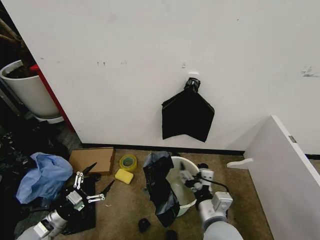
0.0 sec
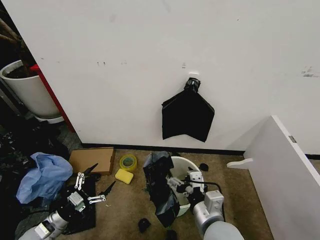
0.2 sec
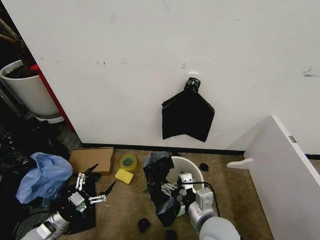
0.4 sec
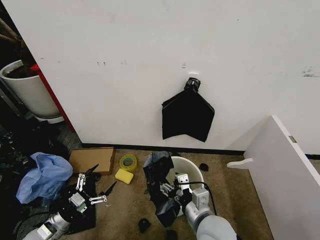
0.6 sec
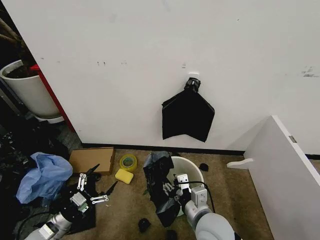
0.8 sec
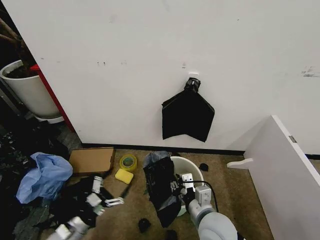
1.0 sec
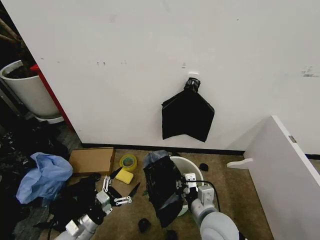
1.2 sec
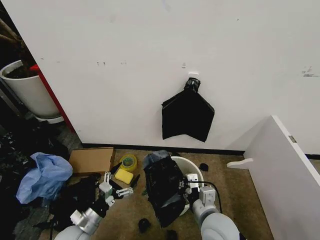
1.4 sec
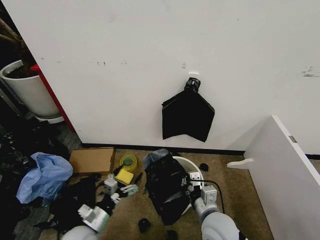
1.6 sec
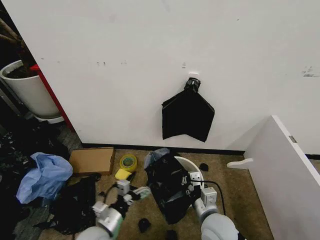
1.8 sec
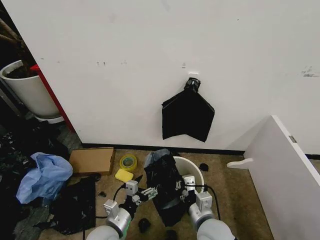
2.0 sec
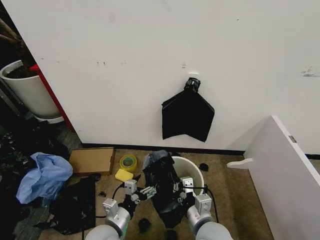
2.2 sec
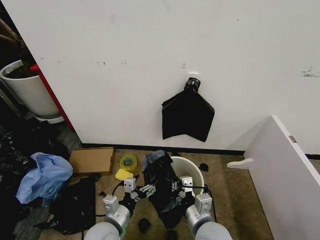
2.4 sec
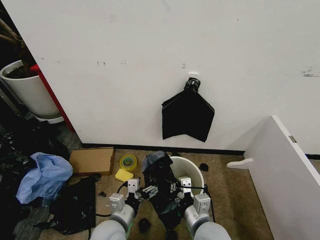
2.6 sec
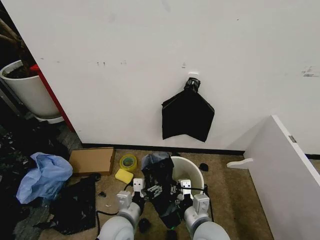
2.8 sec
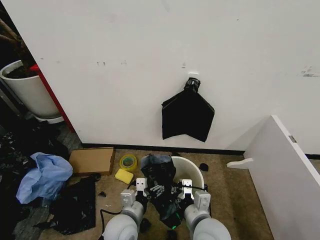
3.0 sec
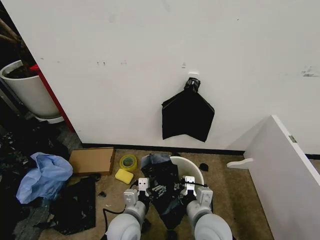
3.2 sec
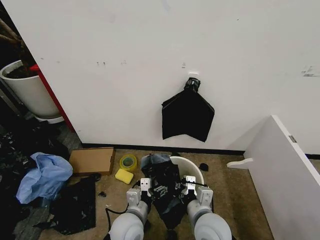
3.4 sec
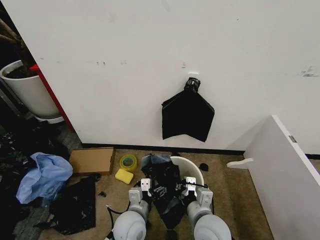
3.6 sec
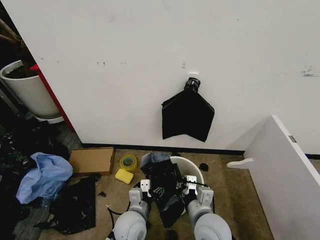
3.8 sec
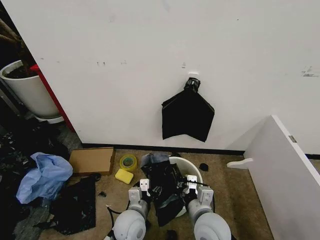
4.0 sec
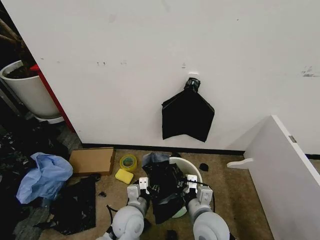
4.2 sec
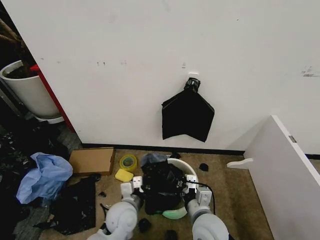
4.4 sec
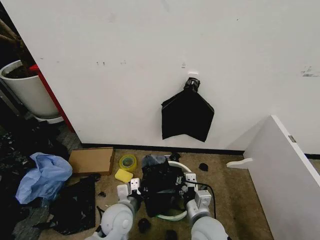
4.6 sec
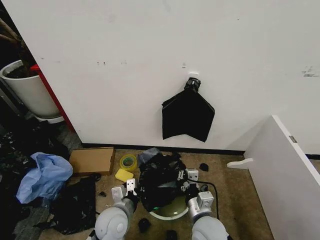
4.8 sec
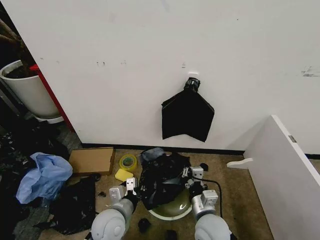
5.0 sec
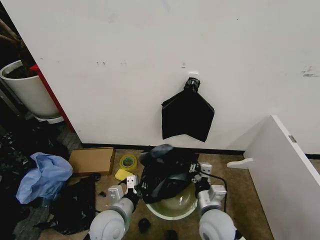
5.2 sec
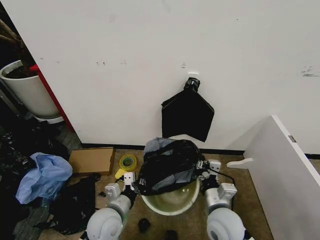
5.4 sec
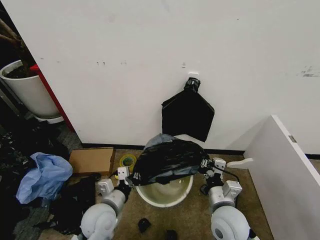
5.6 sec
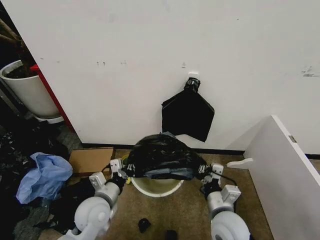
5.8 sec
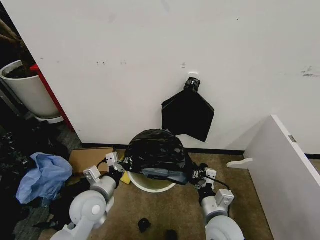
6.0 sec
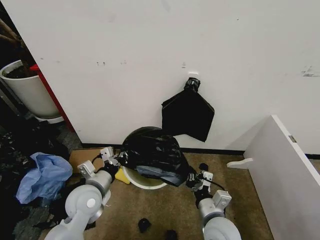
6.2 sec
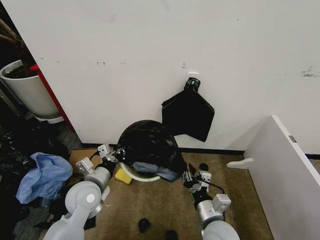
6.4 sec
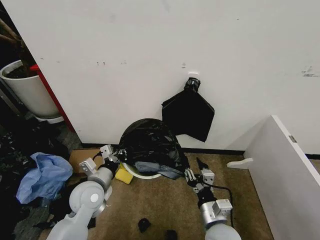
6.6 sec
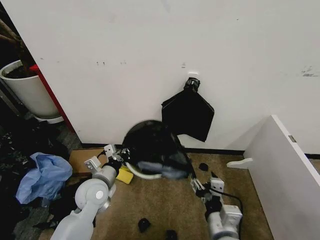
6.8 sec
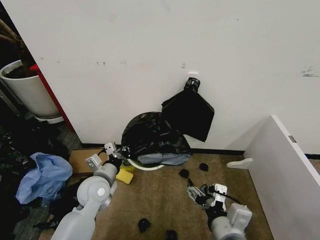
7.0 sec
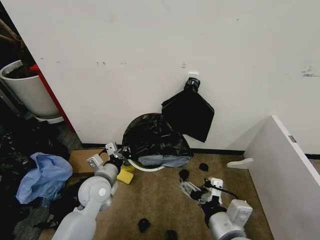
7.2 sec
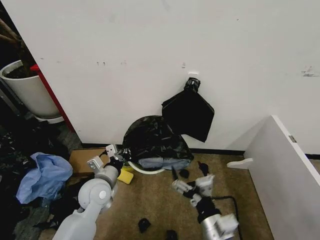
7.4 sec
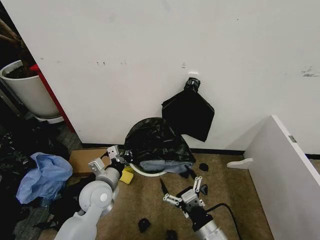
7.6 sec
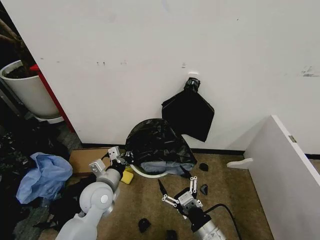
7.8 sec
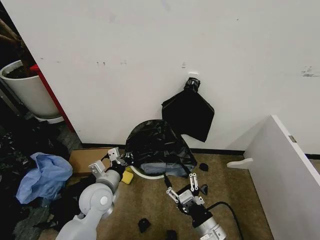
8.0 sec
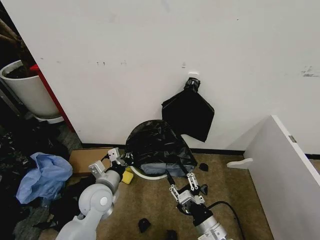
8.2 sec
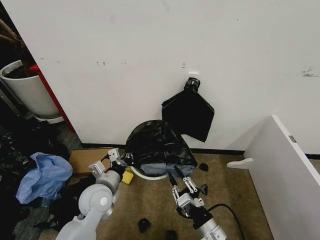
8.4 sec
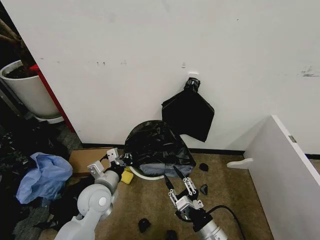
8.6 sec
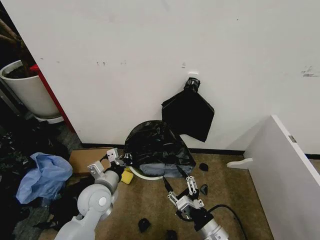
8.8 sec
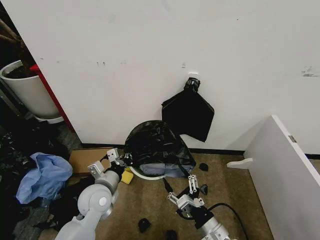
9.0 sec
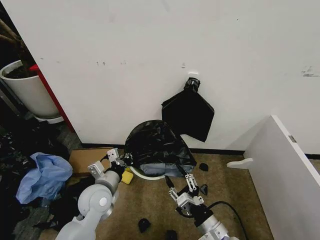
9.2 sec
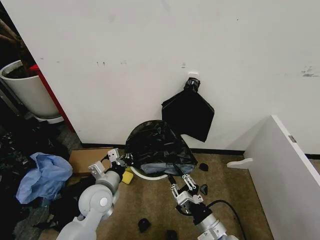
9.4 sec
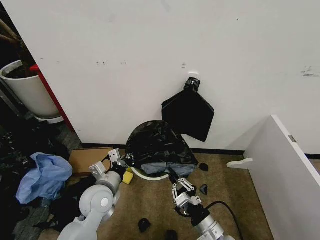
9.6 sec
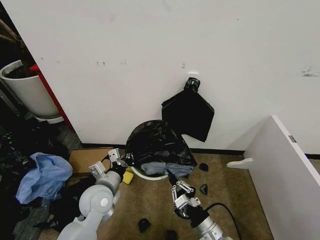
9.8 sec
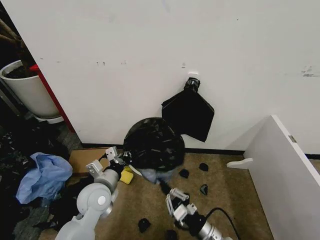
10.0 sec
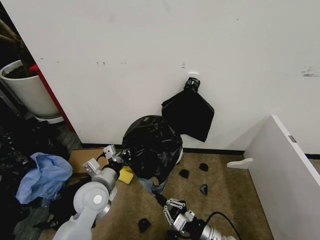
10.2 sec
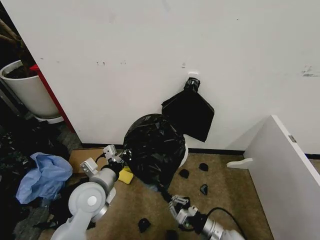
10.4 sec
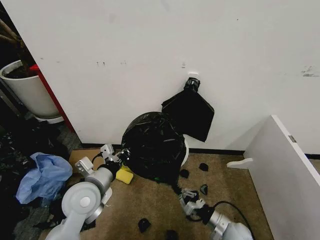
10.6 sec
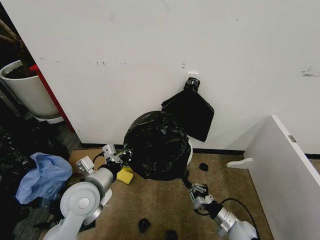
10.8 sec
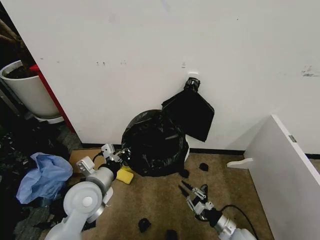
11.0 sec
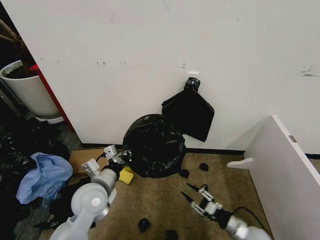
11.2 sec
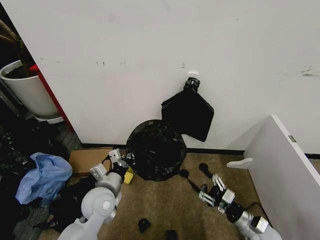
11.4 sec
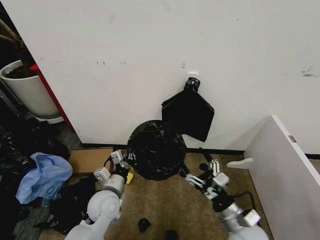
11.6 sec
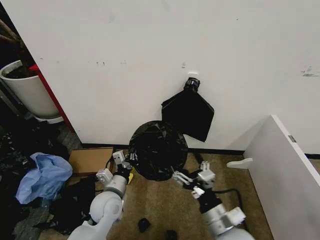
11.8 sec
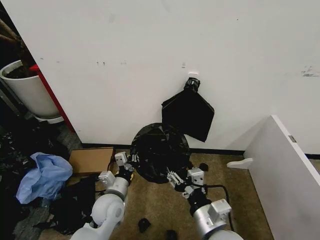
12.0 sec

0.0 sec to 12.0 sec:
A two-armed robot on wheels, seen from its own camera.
Task of the whole recording: Place the garbage bag over the trash bin.
0.0 sec to 1.6 sec: The left gripper is displaced to the right by roughly 15 cm. The right gripper closes up.
1.6 sec to 3.0 sec: The left gripper is displaced to the right by roughly 15 cm.
3.0 sec to 4.4 sec: The left gripper closes its fingers.
4.4 sec to 6.0 sec: The left gripper travels to the left and upward by approximately 10 cm.
6.0 sec to 7.6 sec: The right gripper moves backward, approximately 5 cm, moves approximately 10 cm upward and comes back, and opens its fingers.
7.6 sec to 9.0 sec: The right gripper closes and opens again.
9.0 sec to 10.4 sec: The right gripper goes some 10 cm downward, and closes.
10.4 sec to 12.0 sec: The left gripper is displaced downward by roughly 10 cm, while the right gripper shifts approximately 20 cm upward and to the left, and opens its fingers.

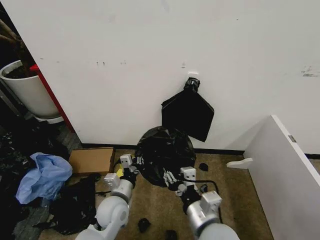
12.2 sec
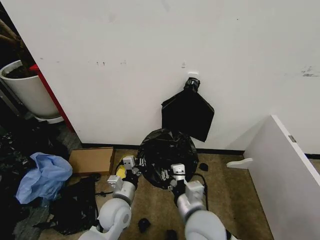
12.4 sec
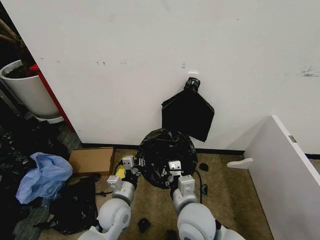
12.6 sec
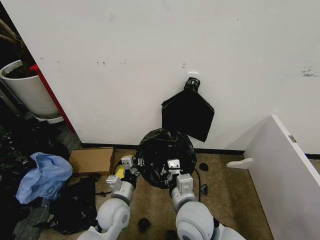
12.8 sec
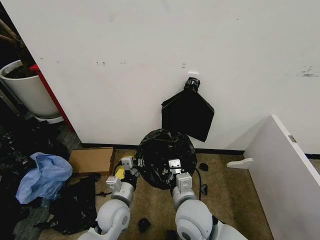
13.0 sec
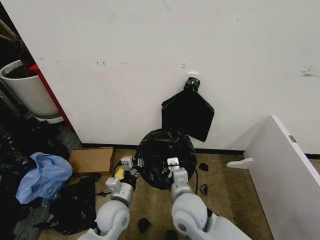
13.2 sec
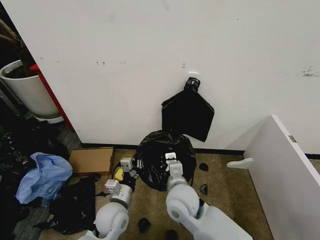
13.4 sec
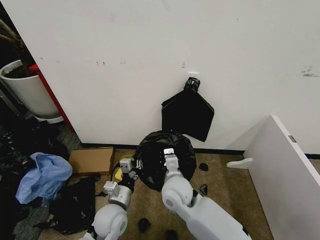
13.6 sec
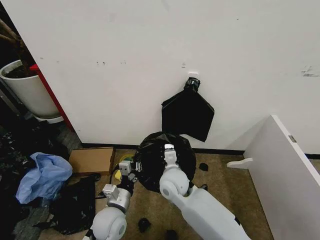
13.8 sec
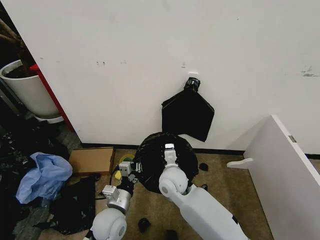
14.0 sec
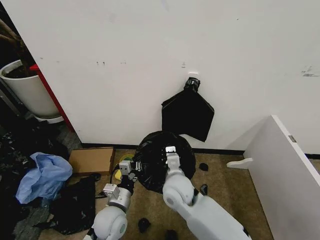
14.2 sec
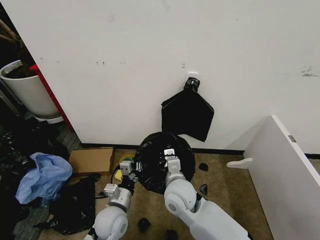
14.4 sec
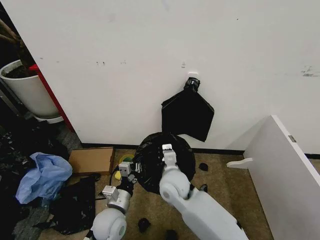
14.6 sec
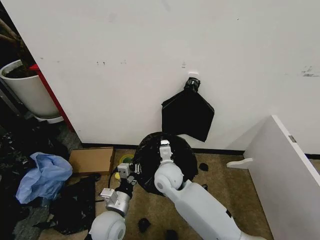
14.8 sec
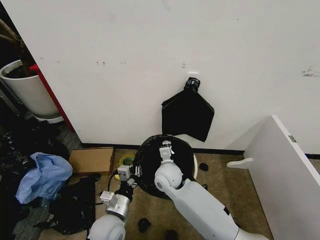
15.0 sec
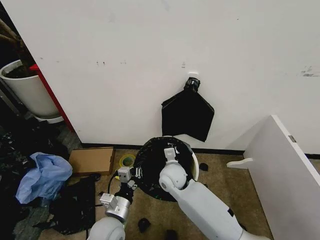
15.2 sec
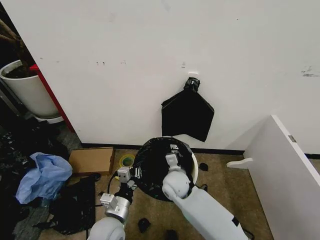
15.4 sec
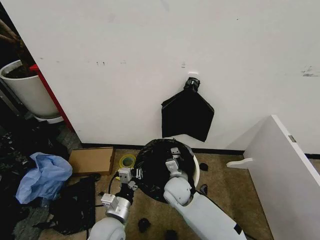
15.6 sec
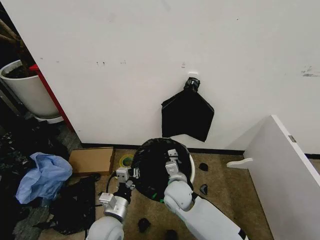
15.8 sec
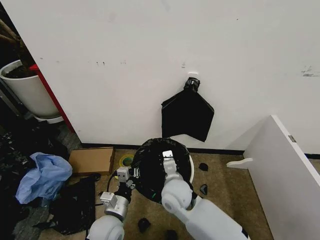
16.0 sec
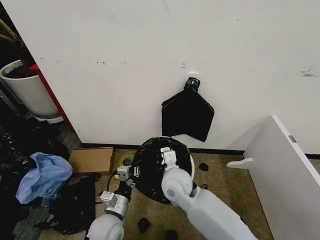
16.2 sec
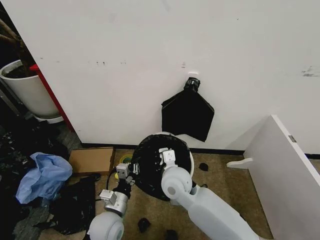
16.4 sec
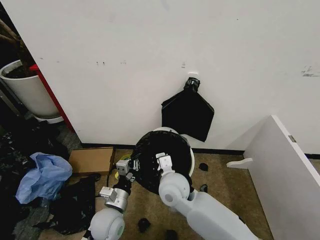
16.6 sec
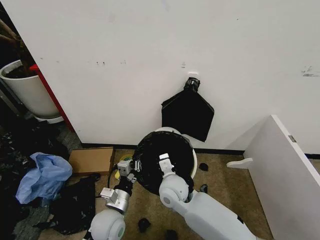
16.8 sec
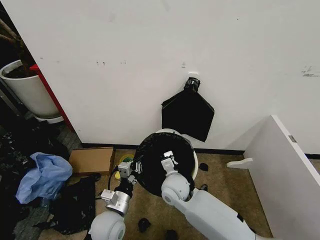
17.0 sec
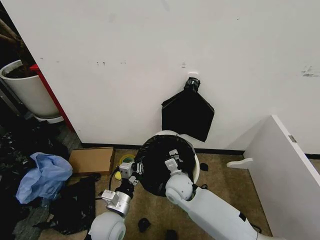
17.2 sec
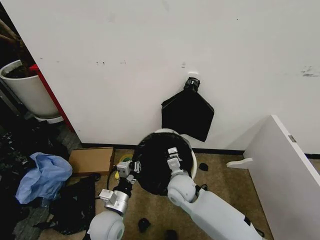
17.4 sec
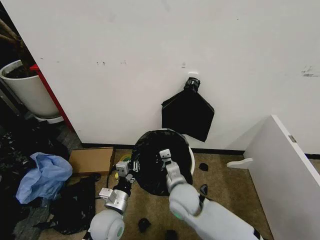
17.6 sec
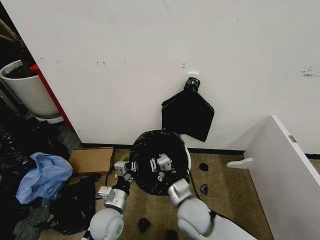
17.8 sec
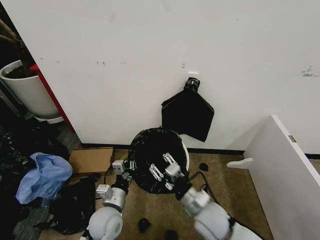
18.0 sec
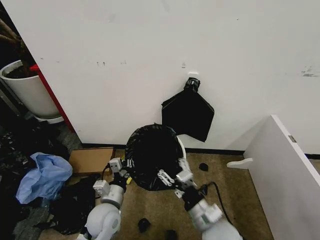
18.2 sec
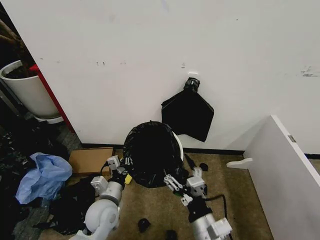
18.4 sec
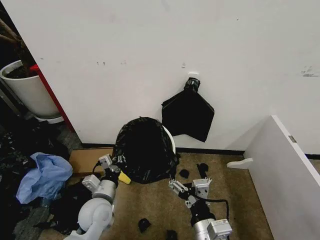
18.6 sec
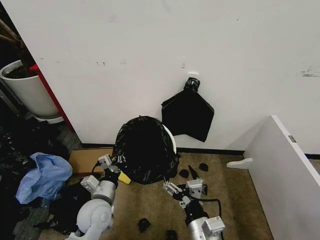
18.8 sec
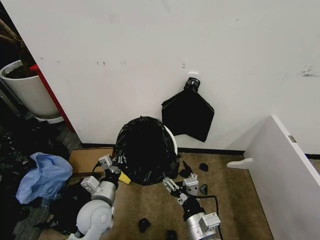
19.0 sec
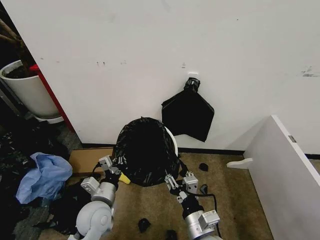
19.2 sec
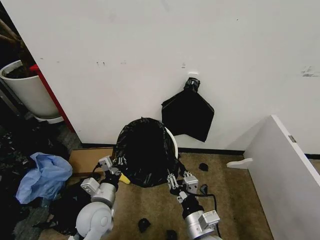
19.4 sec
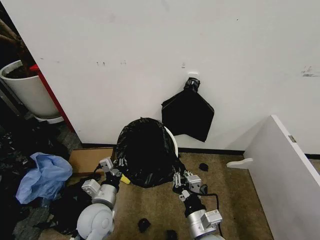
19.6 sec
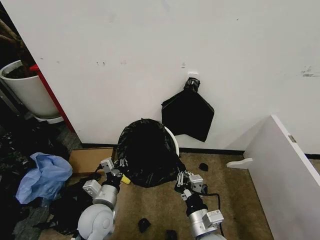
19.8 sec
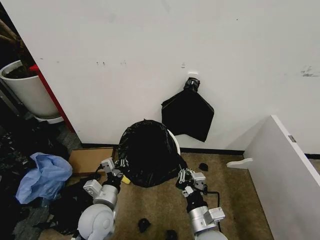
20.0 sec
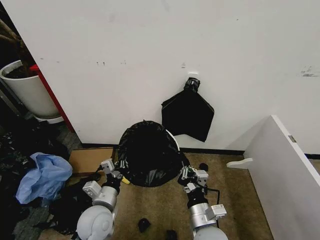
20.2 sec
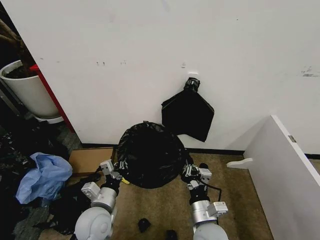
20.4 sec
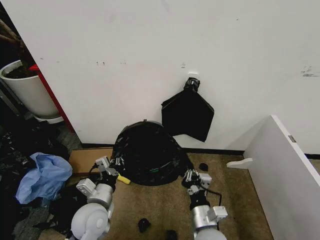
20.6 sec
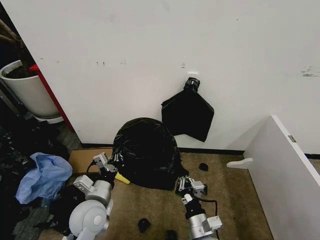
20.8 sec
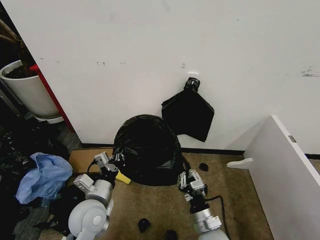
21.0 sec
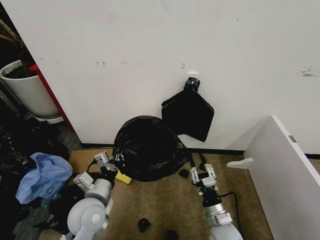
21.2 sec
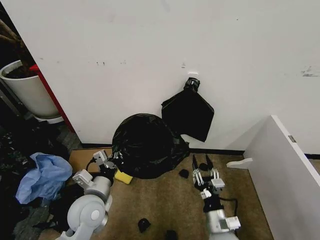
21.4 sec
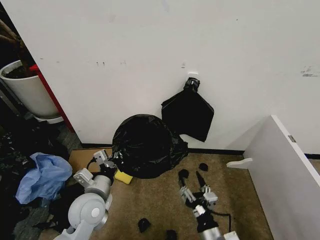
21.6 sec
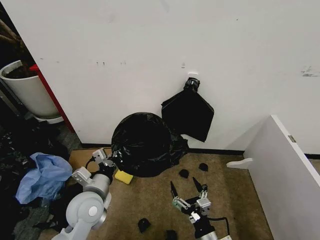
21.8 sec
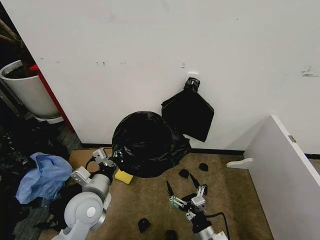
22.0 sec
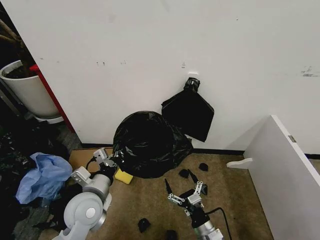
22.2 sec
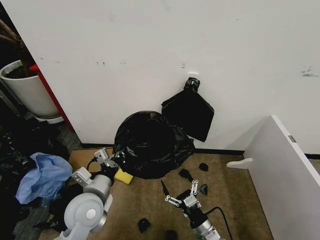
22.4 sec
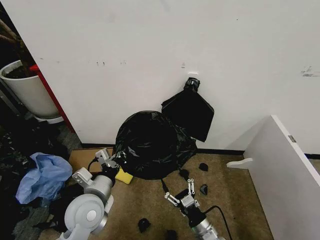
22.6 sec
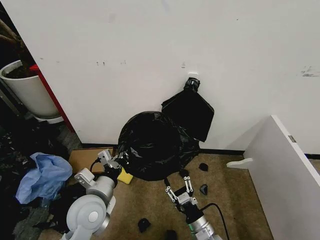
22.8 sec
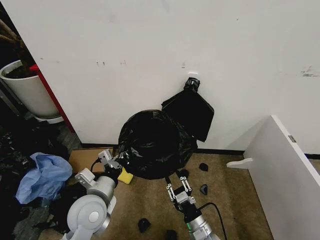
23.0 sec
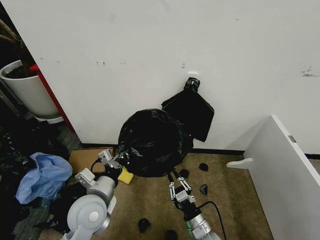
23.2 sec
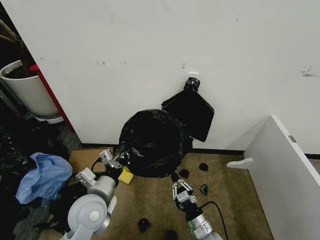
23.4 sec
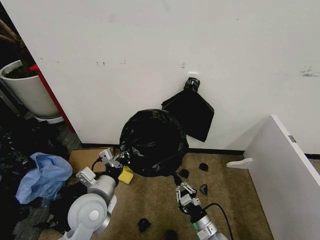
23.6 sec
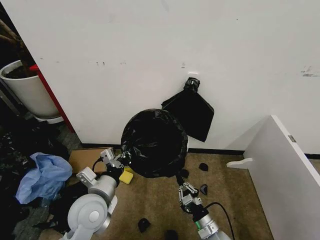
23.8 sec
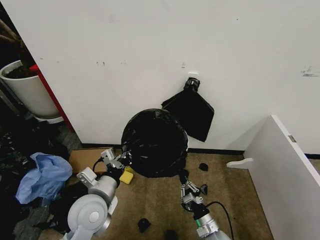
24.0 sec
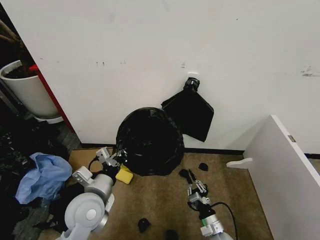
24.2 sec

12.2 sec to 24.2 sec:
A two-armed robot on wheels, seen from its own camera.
Task of the whole recording: Place the garbage bag over the trash bin.
12.2 sec to 13.8 sec: The right gripper travels forward and to the left by some 20 cm, and closes up.
13.8 sec to 15.2 sec: The grippers stay close to where they were, moving slightly.
15.2 sec to 16.6 sec: The right gripper travels backward by some 5 cm.
16.6 sec to 18.2 sec: The right gripper moves to the right and backward, approximately 15 cm, and opens.
18.2 sec to 19.8 sec: The right gripper closes its fingers.
19.8 sec to 21.2 sec: The right gripper is displaced downward, to the right and forward by roughly 15 cm.
21.2 sec to 22.6 sec: The right gripper opens.
22.6 sec to 24.2 sec: The right gripper is displaced downward by roughly 5 cm, and closes.
